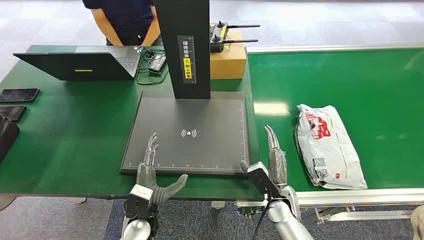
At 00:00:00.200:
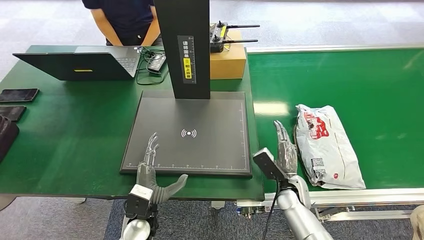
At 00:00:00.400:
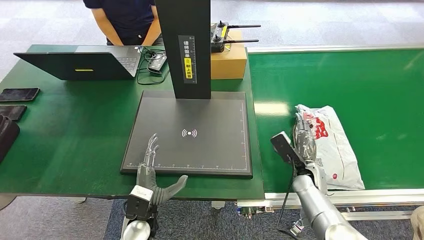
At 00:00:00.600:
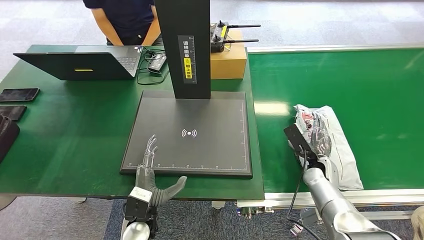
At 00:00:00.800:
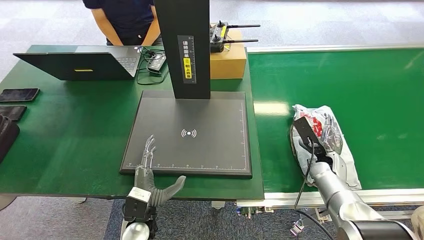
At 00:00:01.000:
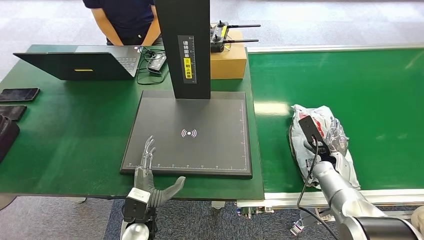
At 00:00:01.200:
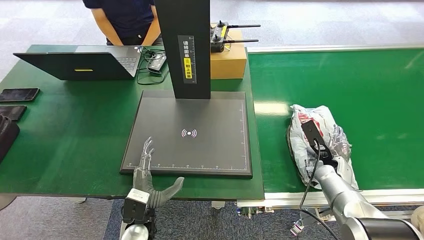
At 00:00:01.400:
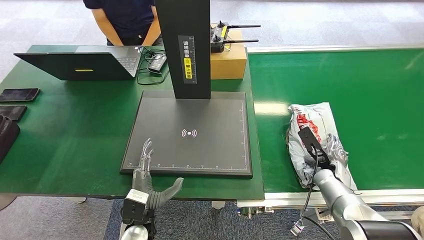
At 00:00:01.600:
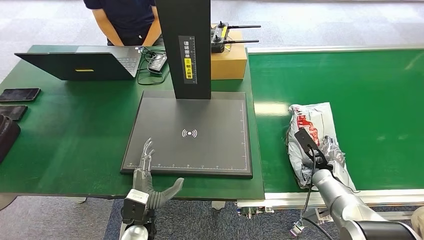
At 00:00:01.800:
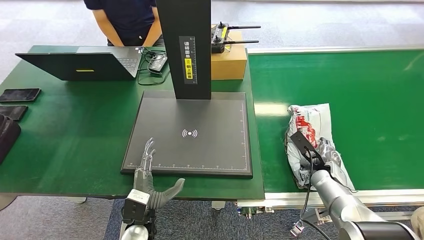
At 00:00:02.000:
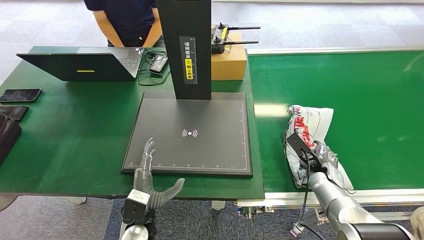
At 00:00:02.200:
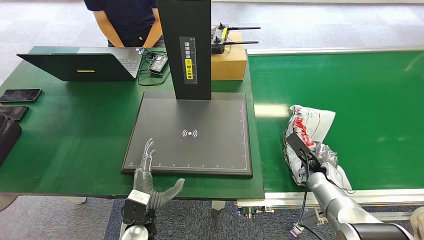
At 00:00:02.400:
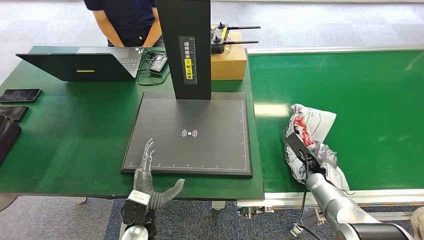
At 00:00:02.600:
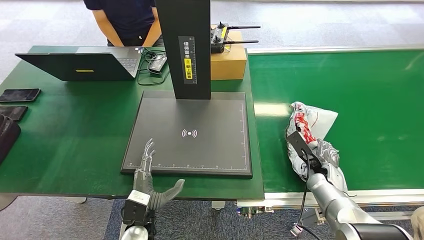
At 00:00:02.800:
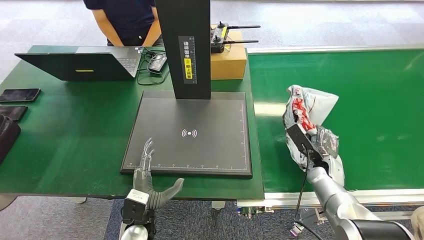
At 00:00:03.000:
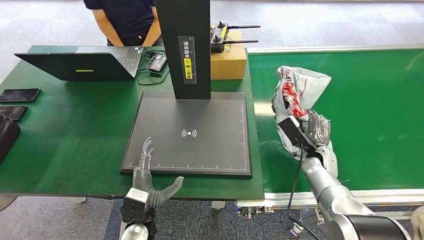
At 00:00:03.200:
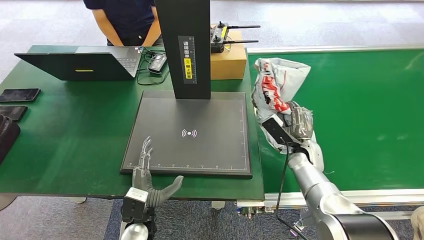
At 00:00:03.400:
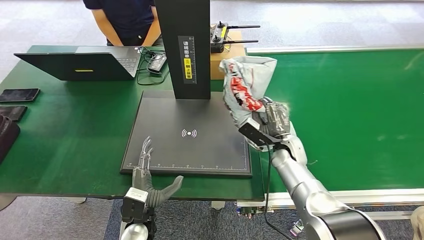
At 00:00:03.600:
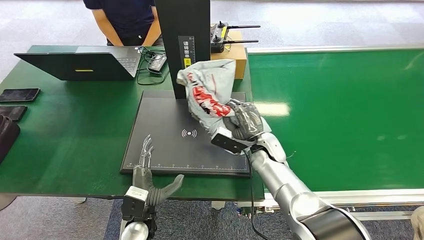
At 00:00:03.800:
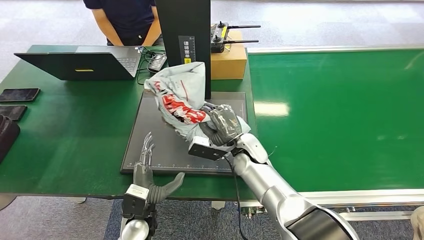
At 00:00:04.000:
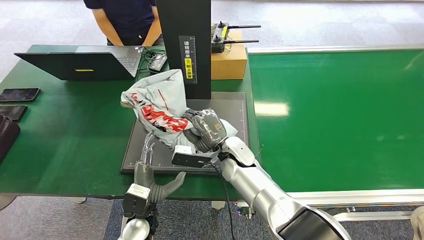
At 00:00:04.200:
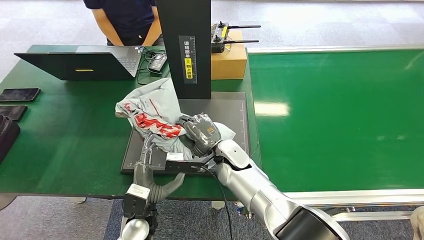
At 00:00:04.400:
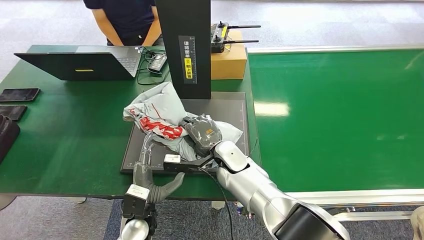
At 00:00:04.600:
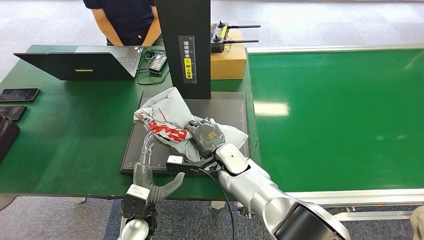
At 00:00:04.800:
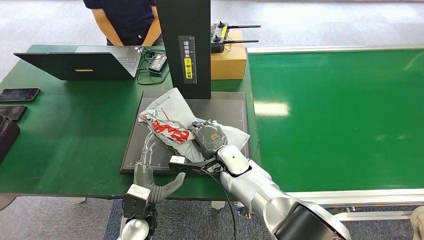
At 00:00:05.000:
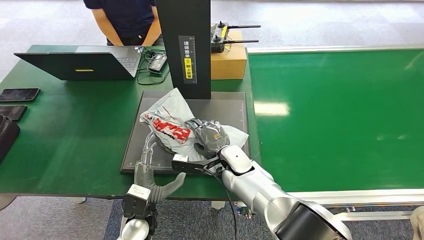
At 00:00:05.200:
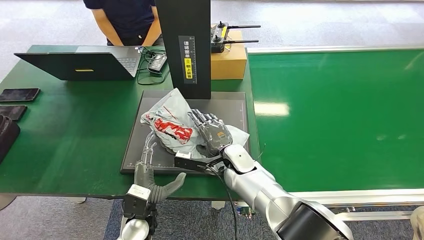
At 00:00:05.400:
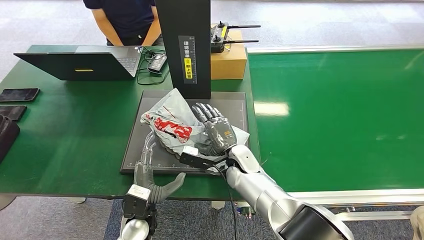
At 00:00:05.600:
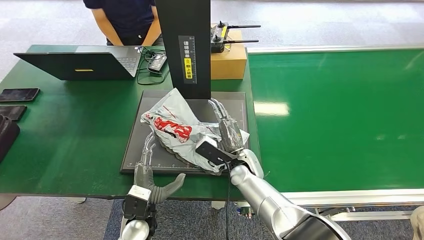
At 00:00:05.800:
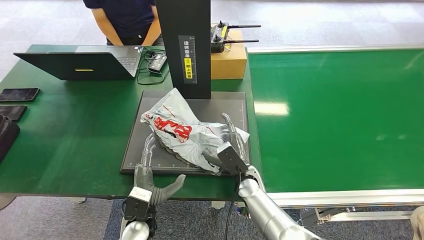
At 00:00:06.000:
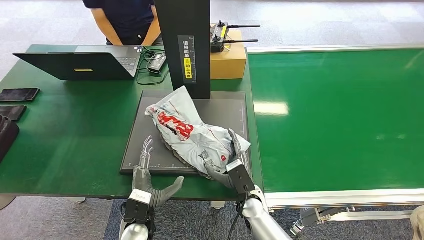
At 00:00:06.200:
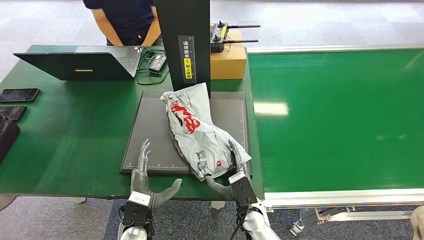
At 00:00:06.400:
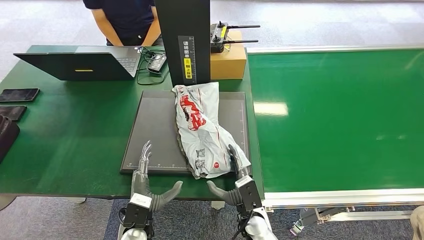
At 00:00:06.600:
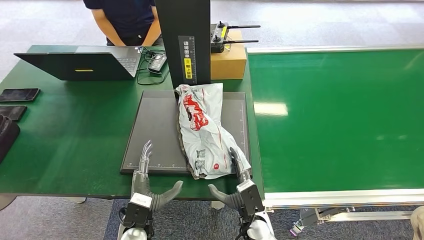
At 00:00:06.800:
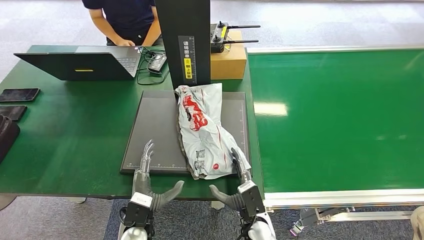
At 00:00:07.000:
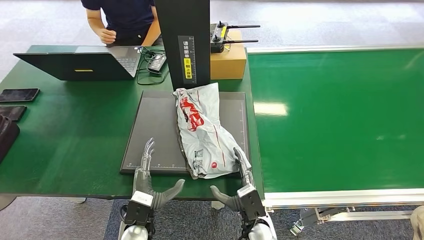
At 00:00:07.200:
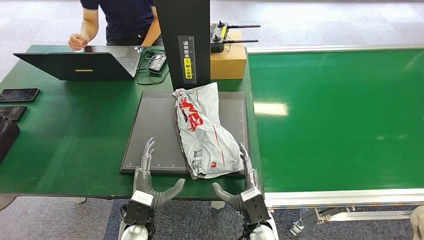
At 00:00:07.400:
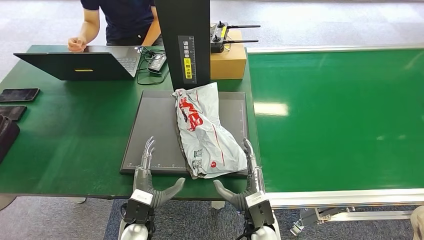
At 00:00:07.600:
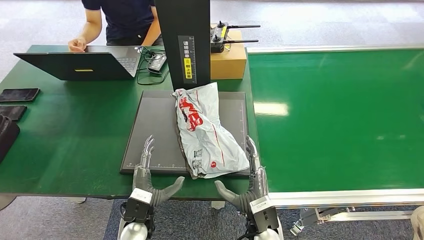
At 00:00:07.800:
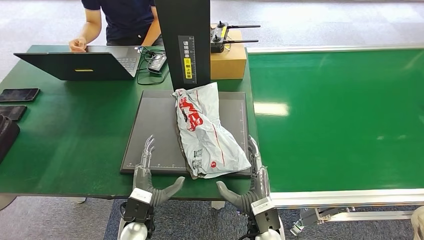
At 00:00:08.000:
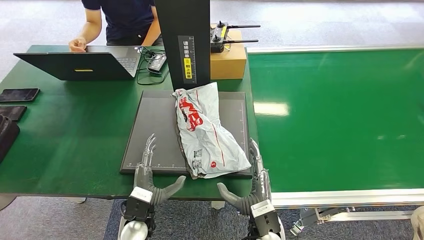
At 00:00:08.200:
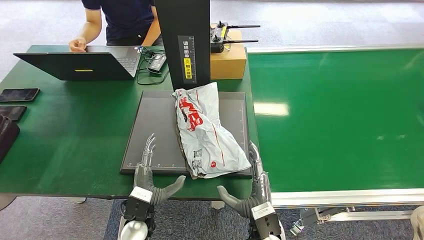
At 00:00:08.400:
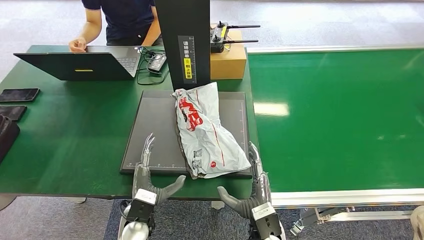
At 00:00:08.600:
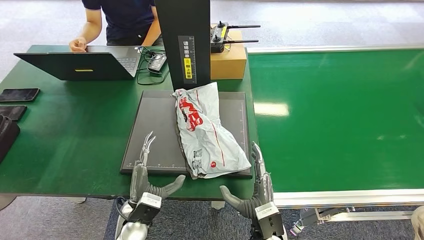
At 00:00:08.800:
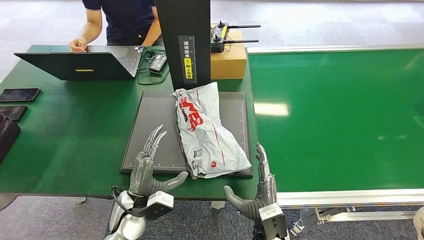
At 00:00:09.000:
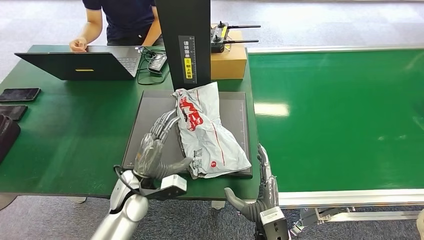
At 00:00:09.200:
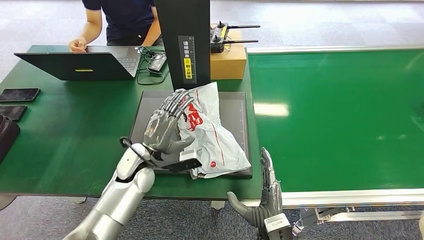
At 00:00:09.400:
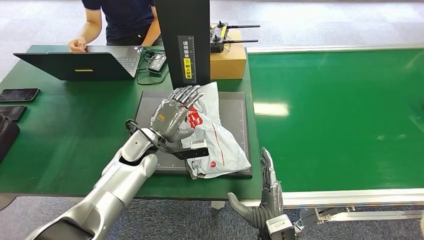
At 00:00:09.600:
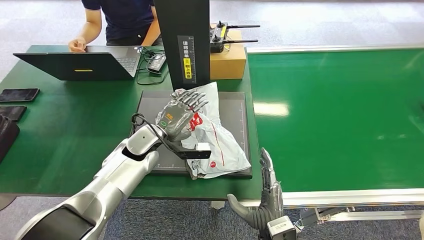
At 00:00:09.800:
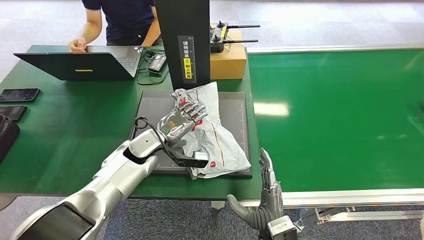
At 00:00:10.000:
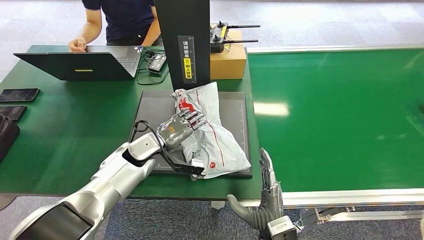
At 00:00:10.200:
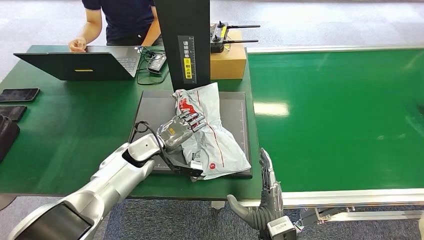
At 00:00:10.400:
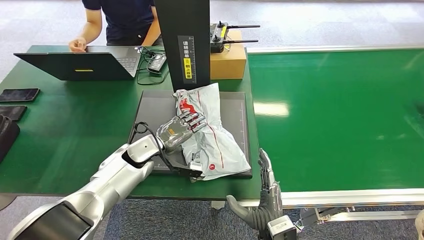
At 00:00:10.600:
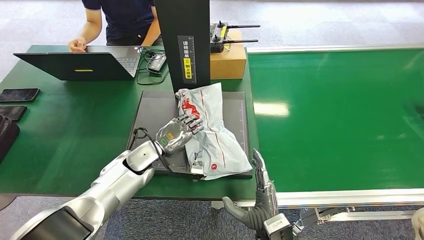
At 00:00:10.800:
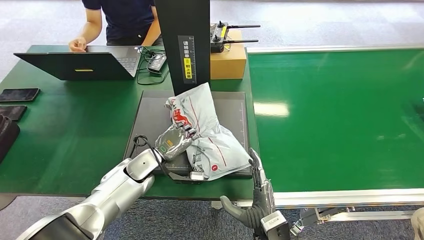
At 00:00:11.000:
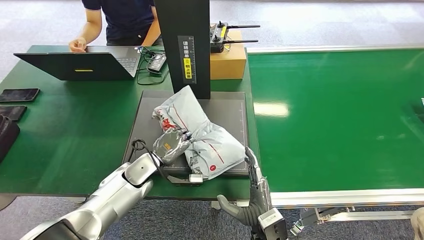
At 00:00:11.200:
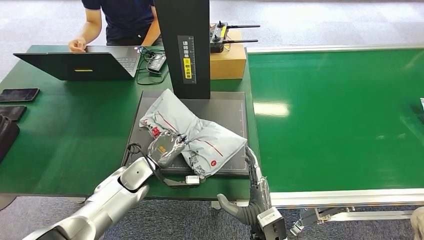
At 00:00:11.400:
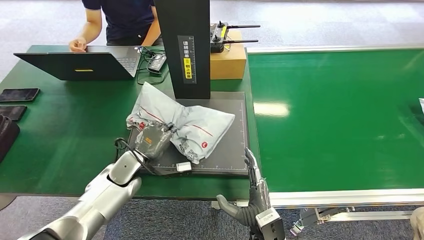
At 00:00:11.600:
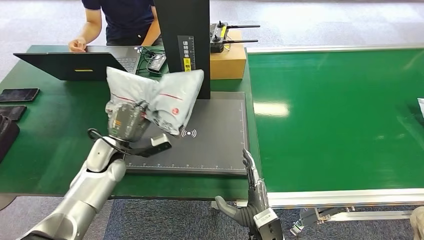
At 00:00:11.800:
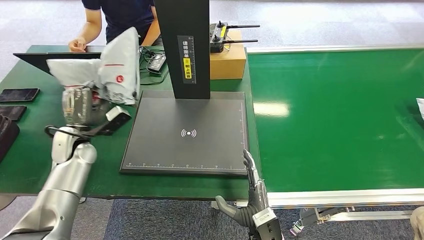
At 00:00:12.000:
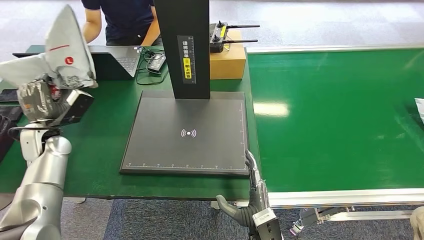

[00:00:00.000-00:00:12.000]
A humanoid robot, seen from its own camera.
Step, 00:00:00.000 to 00:00:03.200: Pick up the package from the conveyor belt.
Step, 00:00:03.600 to 00:00:06.200: Place the package onto the inbound machine.
Step, 00:00:06.600 to 00:00:11.800: Pick up the package from the inbound machine.
00:00:01.600 to 00:00:03.000: The right hand changes place by roughly 5 cm.
00:00:03.000 to 00:00:04.400: The right hand moves to the left, some 30 cm.
00:00:04.400 to 00:00:06.000: The right hand shifts roughly 15 cm downward, backward and to the right.
00:00:06.000 to 00:00:07.600: The right hand travels backward by about 10 cm.
00:00:07.600 to 00:00:09.000: The left hand is displaced forward and upward by approximately 10 cm.
00:00:09.000 to 00:00:10.400: The left hand heads forward, covering about 10 cm.

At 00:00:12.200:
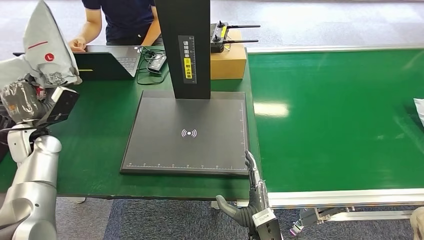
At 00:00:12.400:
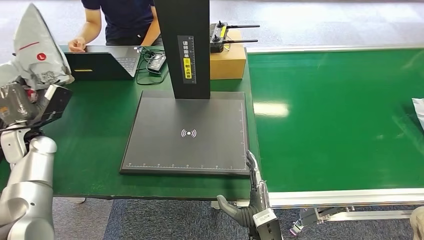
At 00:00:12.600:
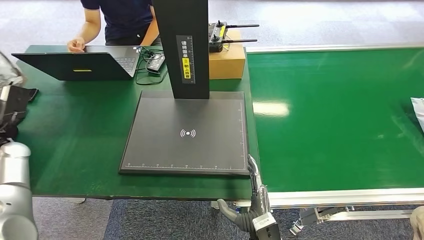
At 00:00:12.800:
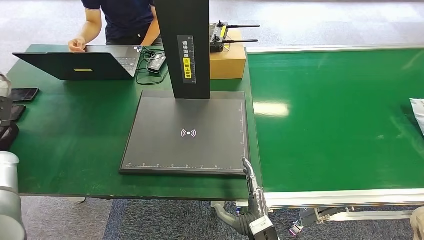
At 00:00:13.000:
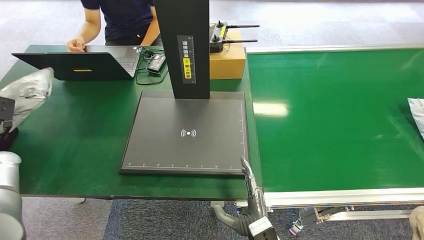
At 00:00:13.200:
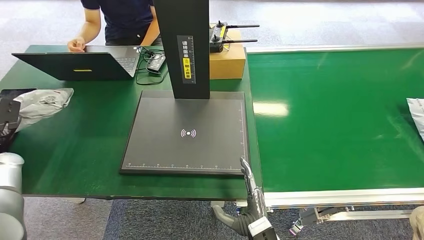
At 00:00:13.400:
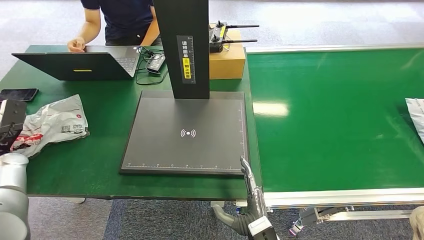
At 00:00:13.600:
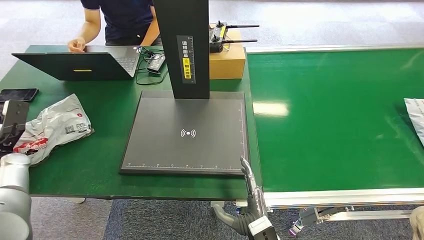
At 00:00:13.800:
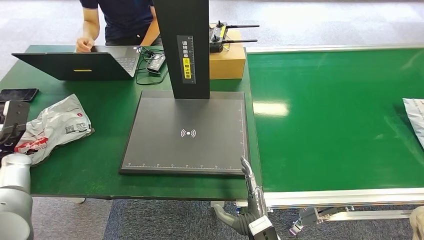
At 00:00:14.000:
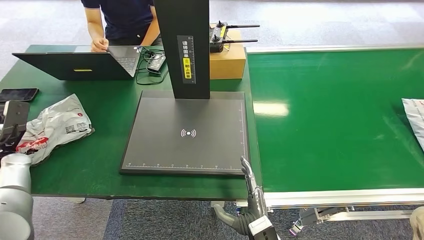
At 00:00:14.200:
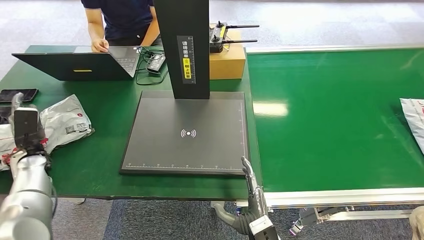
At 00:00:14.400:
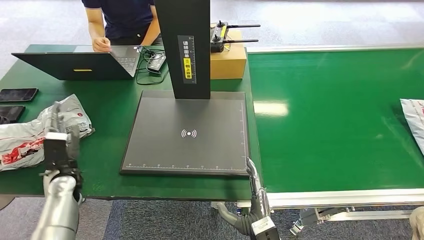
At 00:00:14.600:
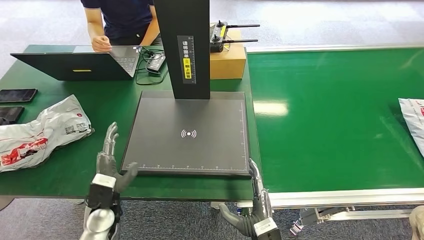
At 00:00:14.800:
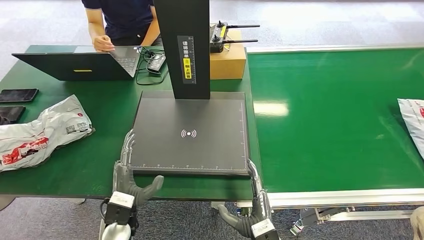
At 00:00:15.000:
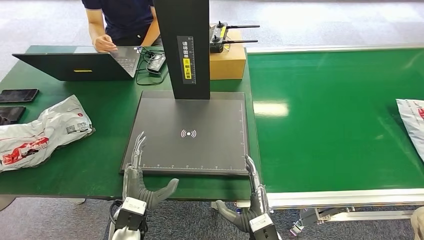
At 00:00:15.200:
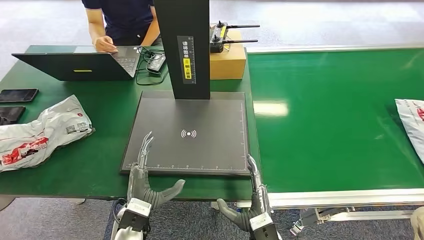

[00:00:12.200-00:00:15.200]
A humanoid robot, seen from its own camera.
Step, 00:00:12.200 to 00:00:15.000: Place the package into the parcel locker.
00:00:12.200 to 00:00:13.800: The left hand goes approximately 10 cm to the left.
00:00:13.800 to 00:00:15.200: The left hand shifts some 35 cm to the right and backward.
